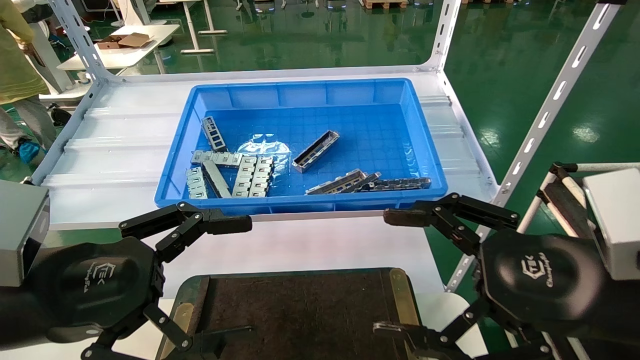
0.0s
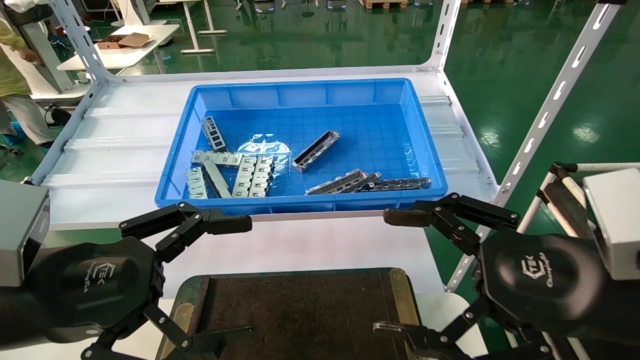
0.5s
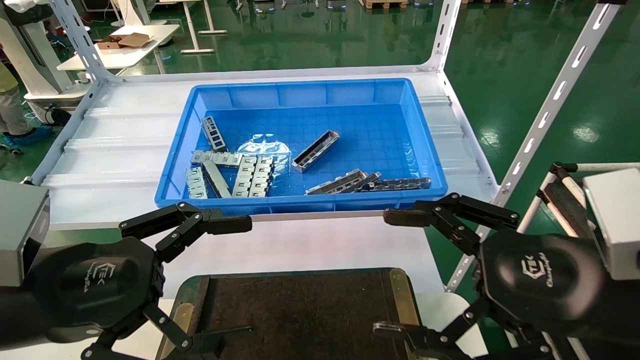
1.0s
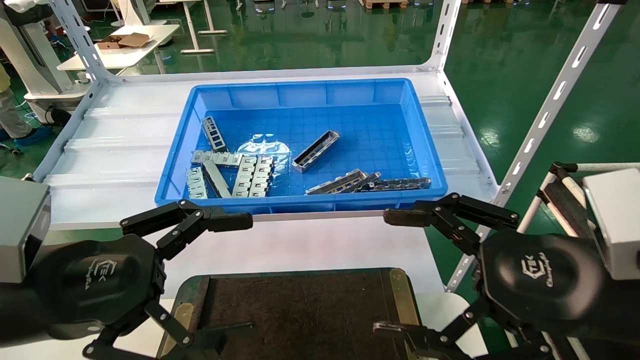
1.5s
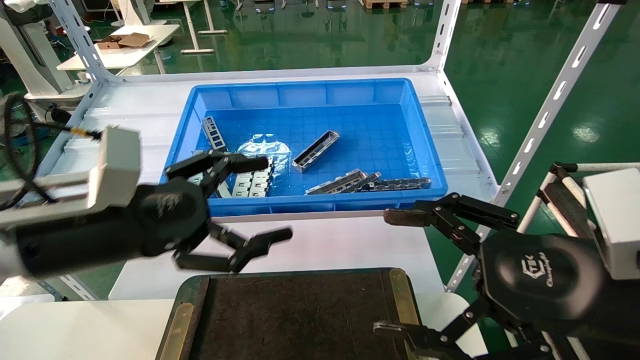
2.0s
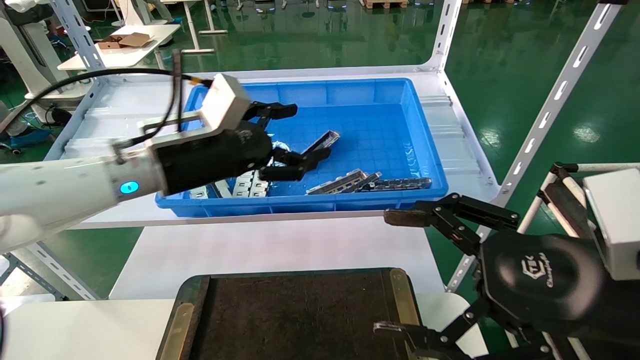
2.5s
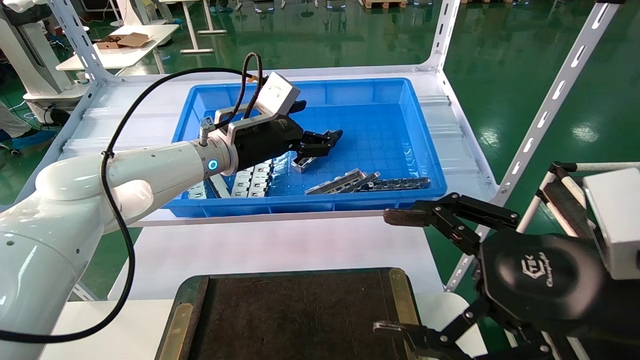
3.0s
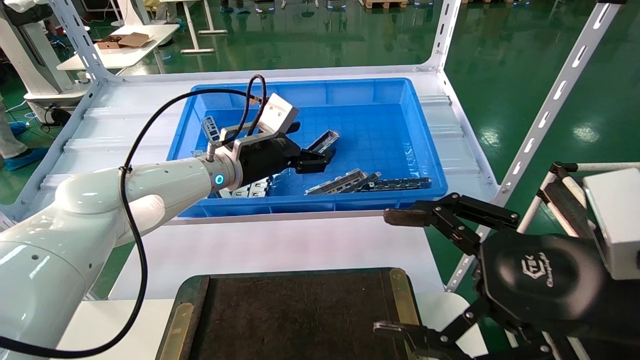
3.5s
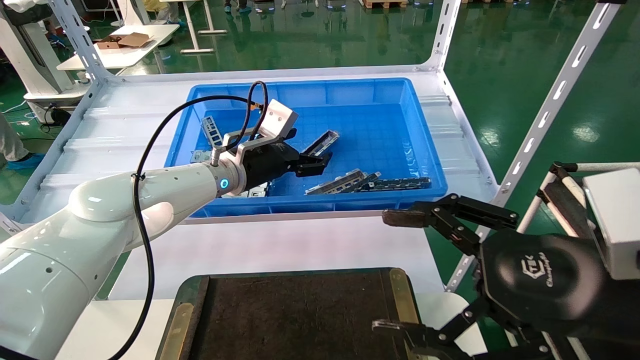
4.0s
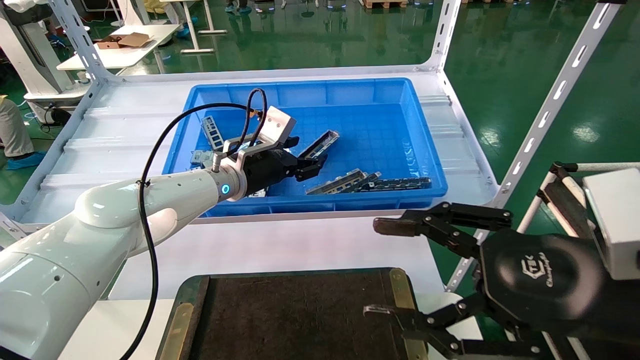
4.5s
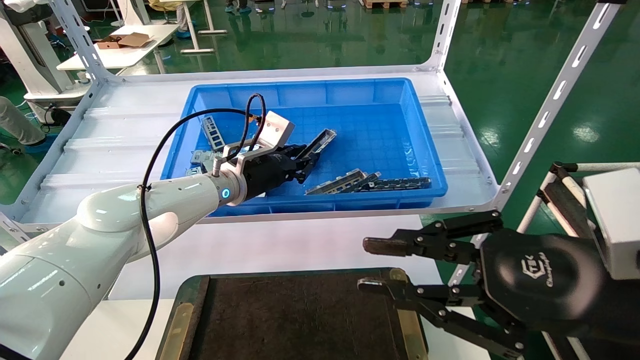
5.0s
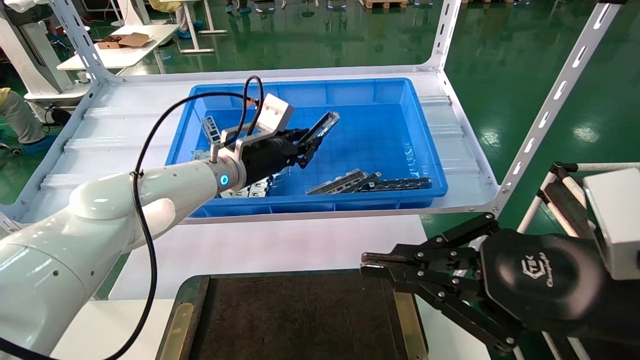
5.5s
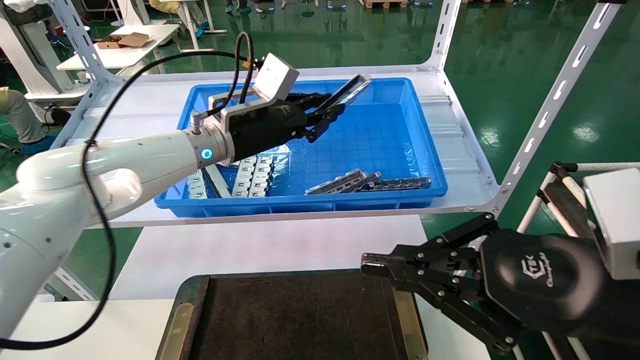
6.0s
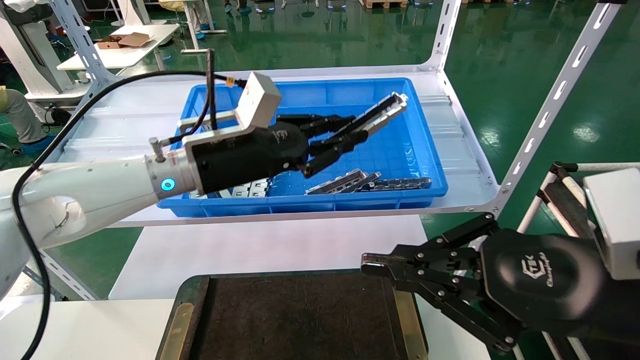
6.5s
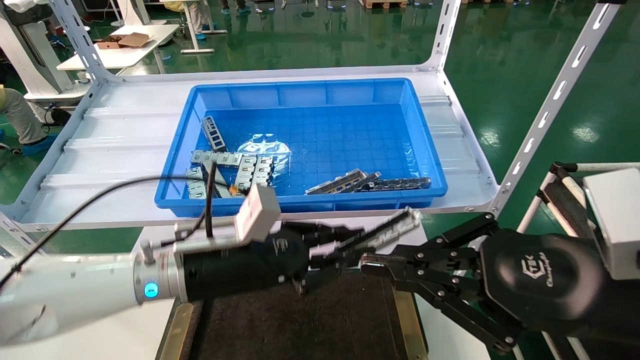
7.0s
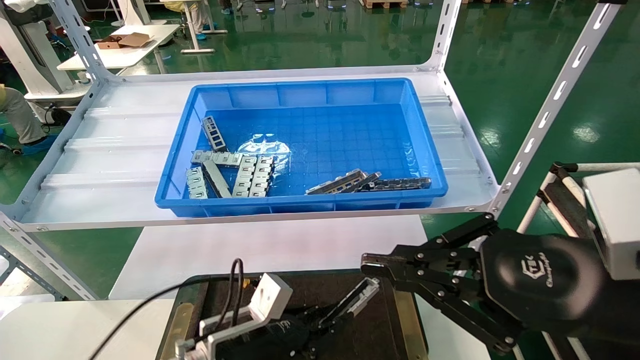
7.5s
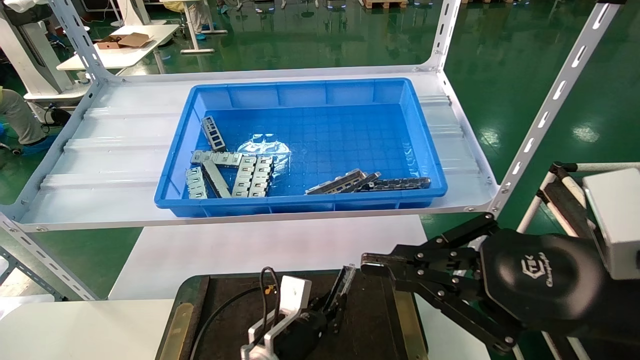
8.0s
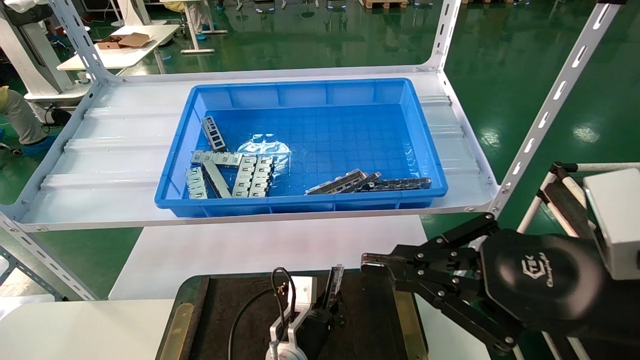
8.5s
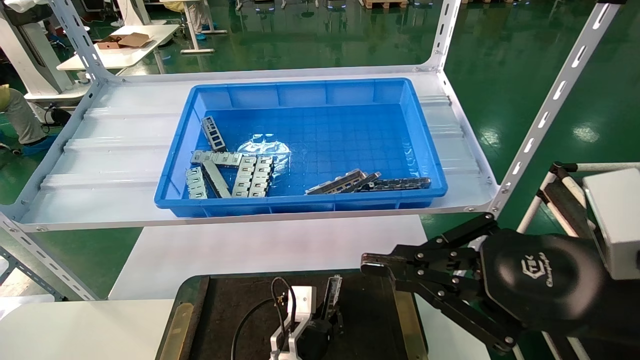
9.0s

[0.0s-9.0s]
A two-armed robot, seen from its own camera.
Task of the whole recording: Grasp the part with one hand and place it on the black container.
Step, 2.0s to 6.0s: Pick up the front USB bracket from the feeding area.
0.0s to 2.0s: The left gripper heads forward, covering some 5 cm.
2.0s to 4.5s: The left gripper shifts approximately 25 cm forward and to the right.
4.5s to 7.0s: The left gripper goes some 15 cm backward and downward, and closes up; the right gripper closes its fingers.
7.0s to 9.0s: The left gripper moves downward and to the right, about 25 cm.

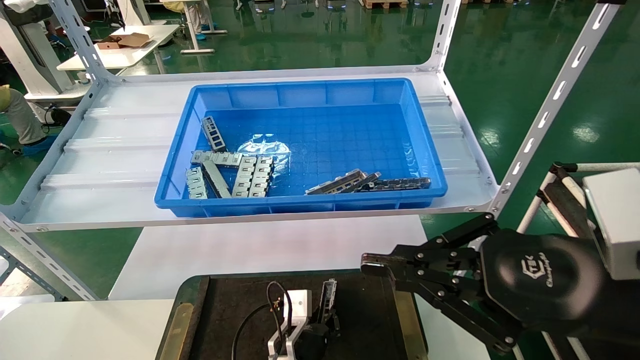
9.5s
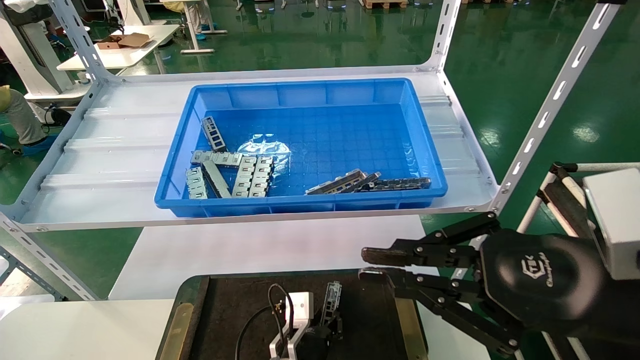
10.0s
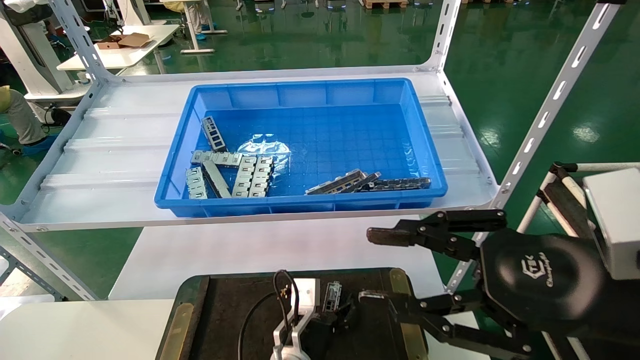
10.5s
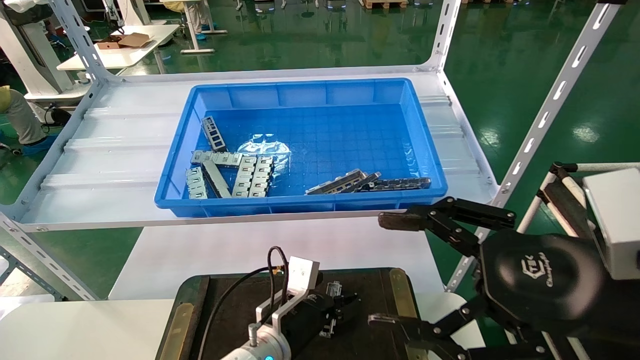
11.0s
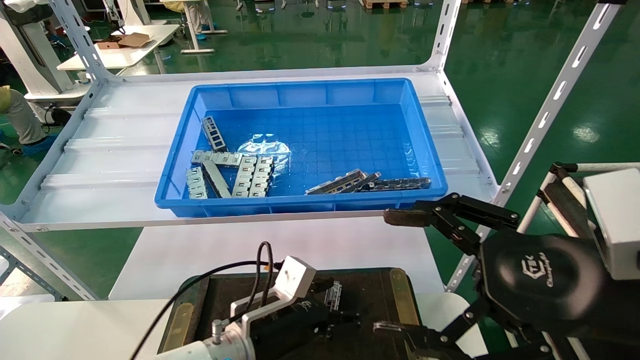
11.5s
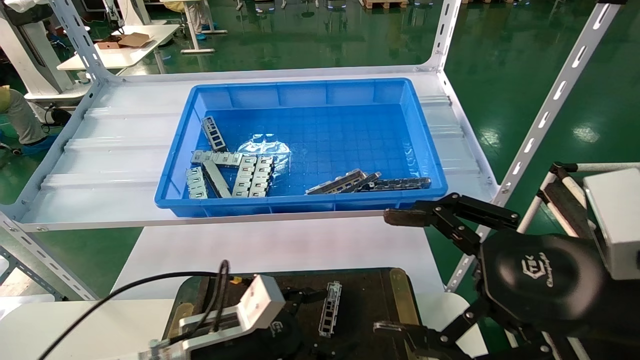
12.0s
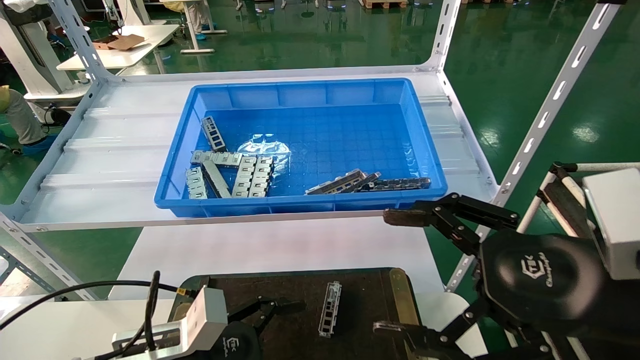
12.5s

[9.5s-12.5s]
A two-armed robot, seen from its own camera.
Task of the whole recording: Grasp the part with one hand and place it on the black container.
9.5s to 11.0s: The right gripper opens its fingers, while the left gripper shifts some 5 cm upward, and opens its fingers.
11.0s to 12.5s: The left gripper shifts approximately 20 cm to the left, backward and upward.
